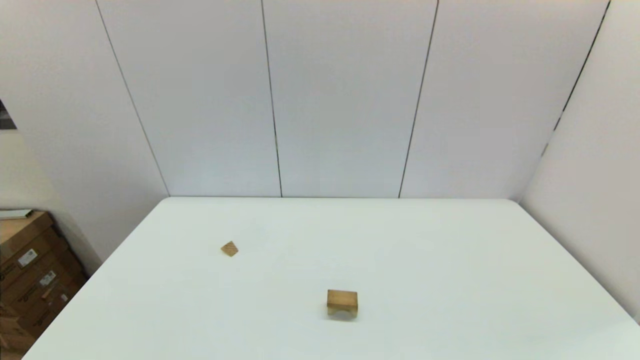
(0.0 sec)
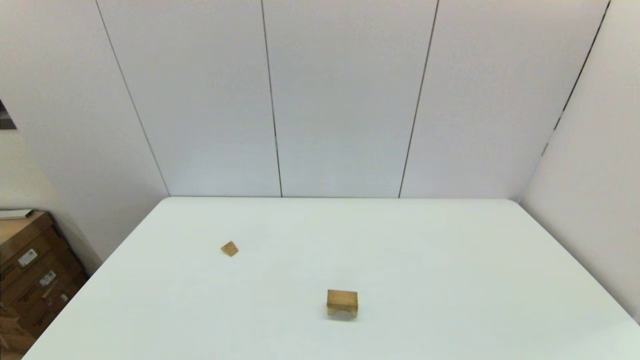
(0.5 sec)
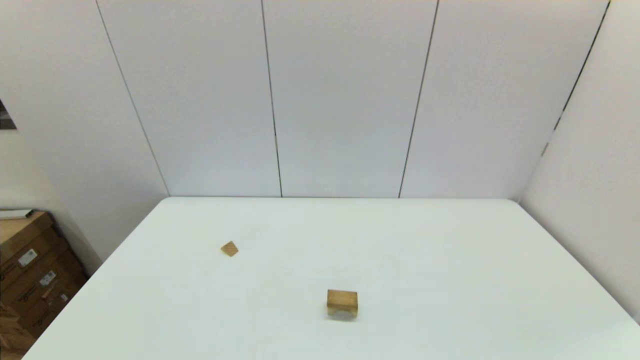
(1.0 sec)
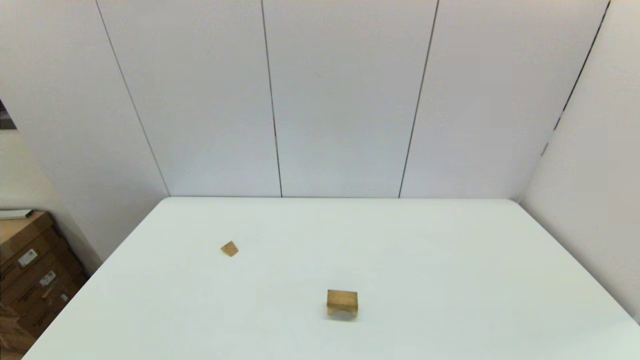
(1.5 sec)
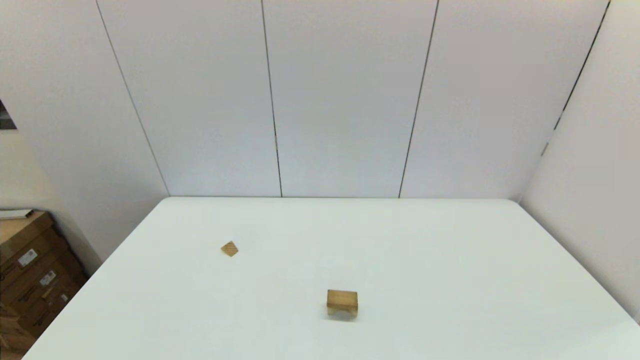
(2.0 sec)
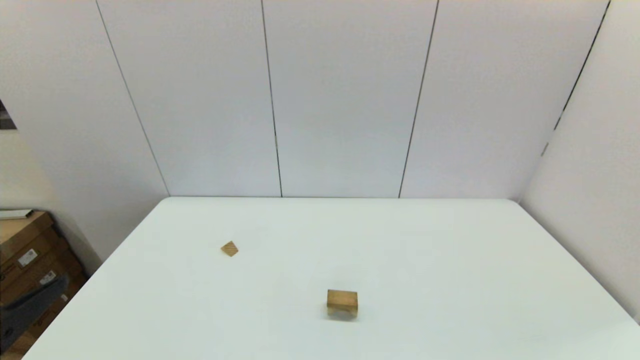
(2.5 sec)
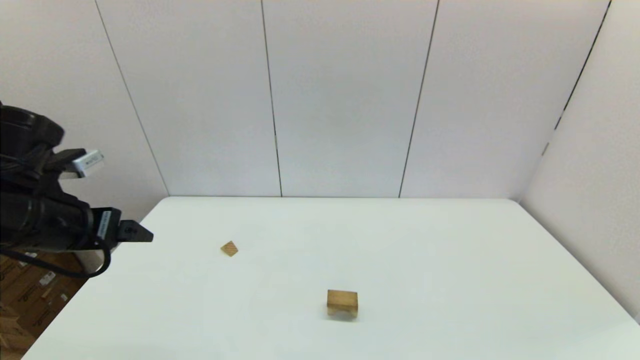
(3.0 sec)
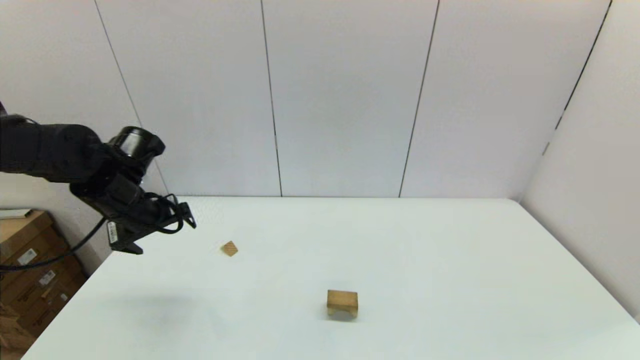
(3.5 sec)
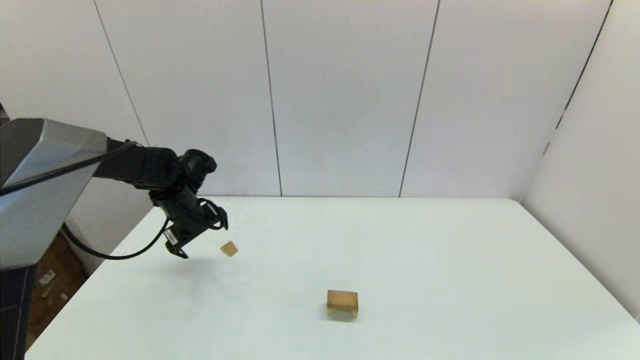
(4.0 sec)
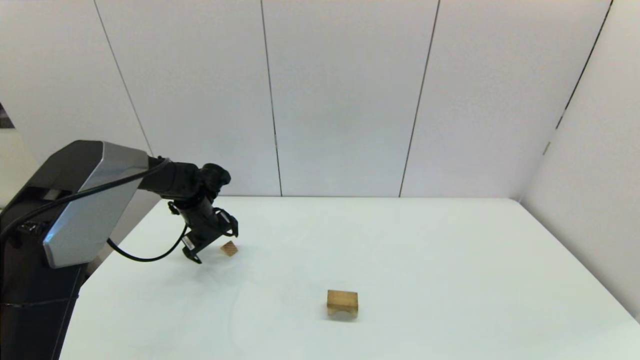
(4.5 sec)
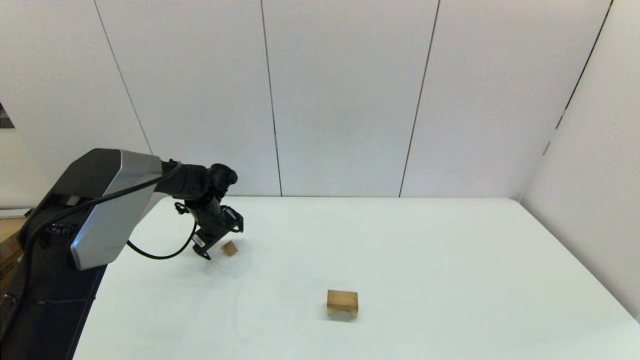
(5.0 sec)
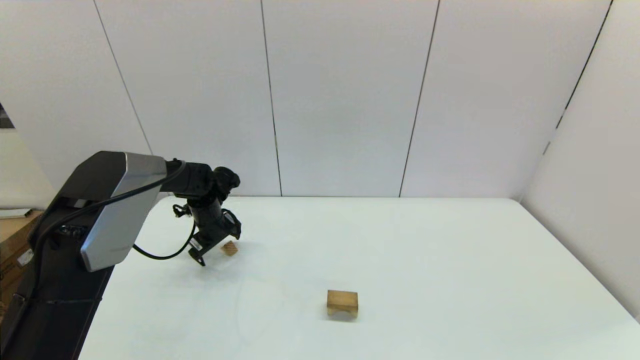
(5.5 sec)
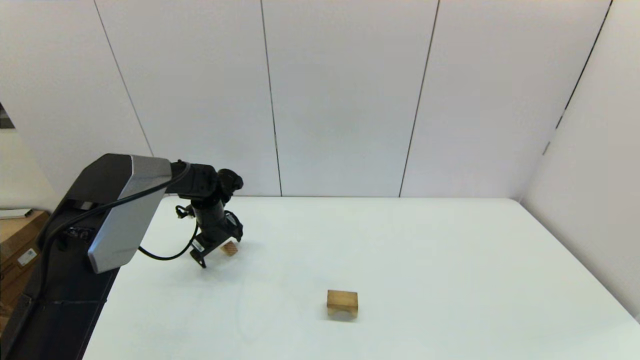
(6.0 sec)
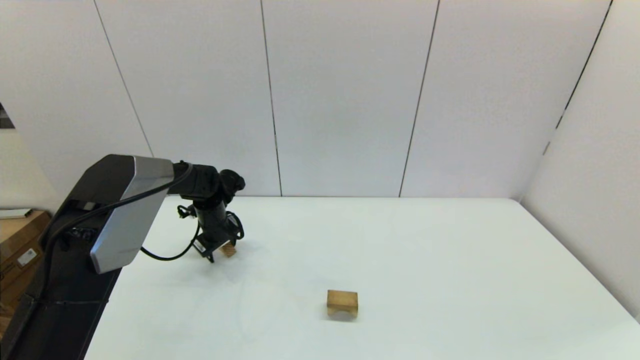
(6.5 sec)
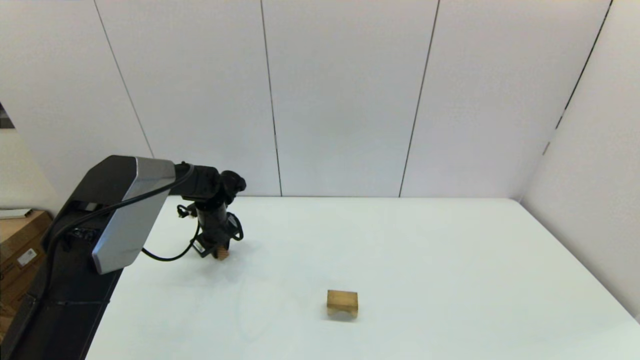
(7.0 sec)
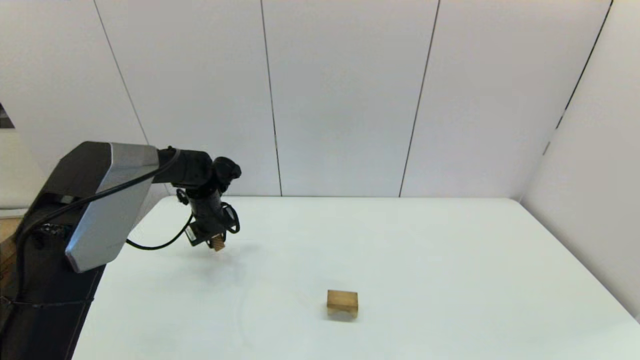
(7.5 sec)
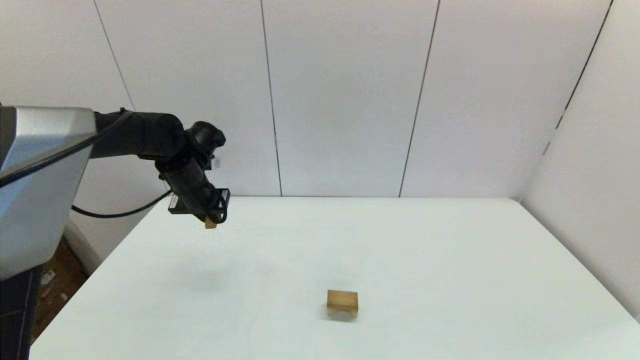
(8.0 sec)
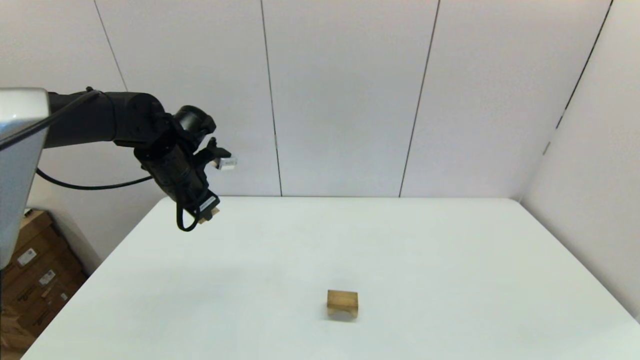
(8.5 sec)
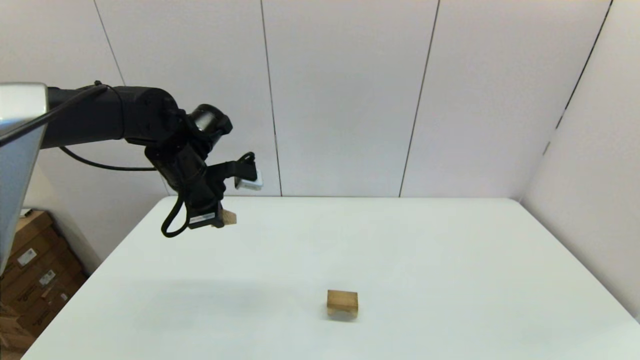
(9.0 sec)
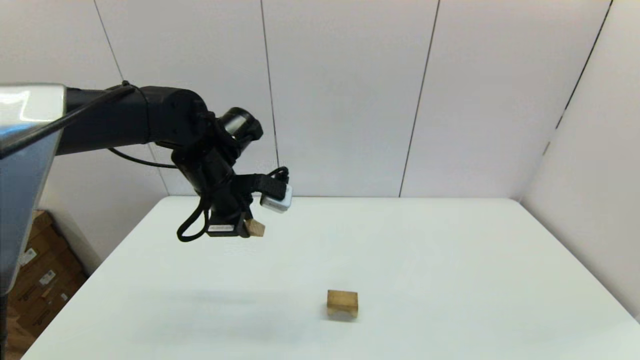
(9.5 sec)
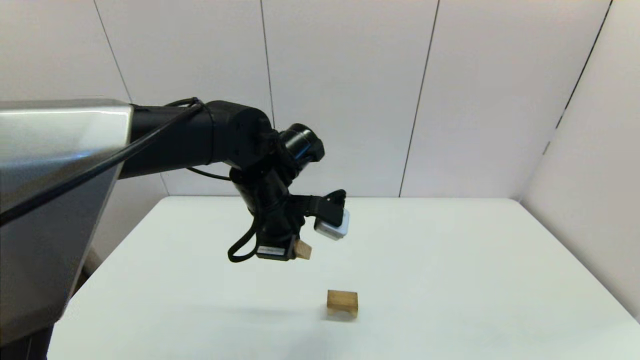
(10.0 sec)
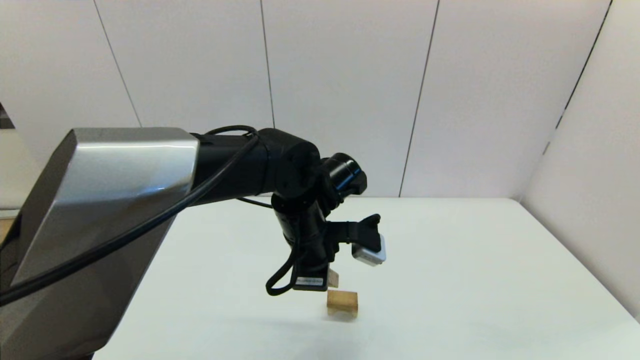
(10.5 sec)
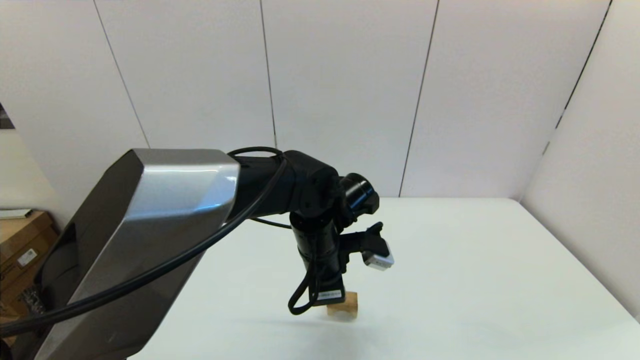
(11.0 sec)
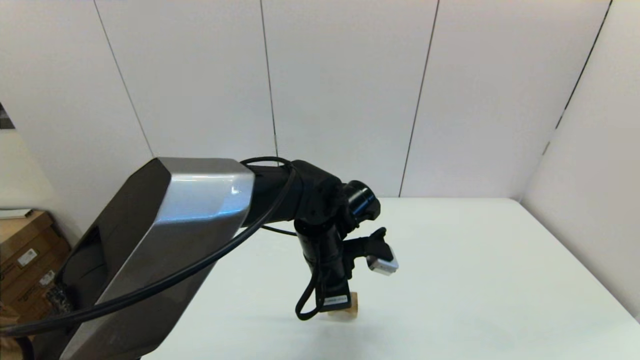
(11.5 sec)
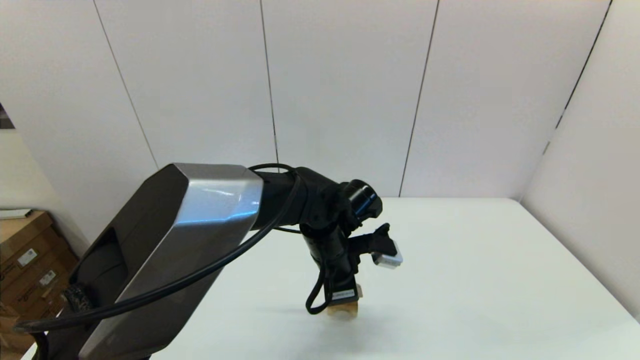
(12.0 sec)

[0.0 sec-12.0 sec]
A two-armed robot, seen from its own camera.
Task of the whole recording: place the arched building blocks in the center of the table, set up the rectangular building blocks, and then set up the triangular building blocks.
Step, 0.0 sec to 6.5 sec: Grasp the triangle-shaped block with the left gripper.
2.0 sec to 4.0 sec: The left gripper shifts about 40 cm forward.
4.0 sec to 6.0 sec: The left gripper goes some 5 cm downward.
6.0 sec to 8.0 sec: The left gripper goes some 15 cm upward, and closes.
8.0 sec to 10.0 sec: The left gripper shifts some 20 cm to the right and backward.
10.0 sec to 12.0 sec: The left gripper heads downward and to the right, covering approximately 10 cm.

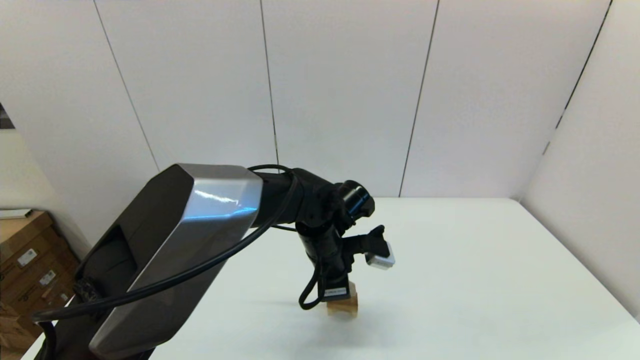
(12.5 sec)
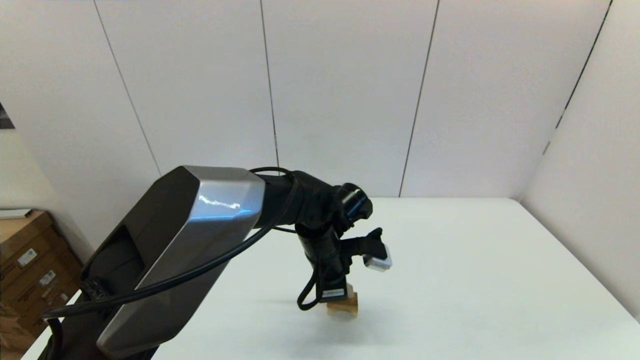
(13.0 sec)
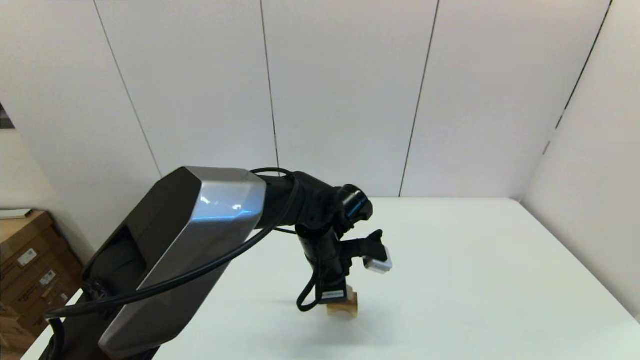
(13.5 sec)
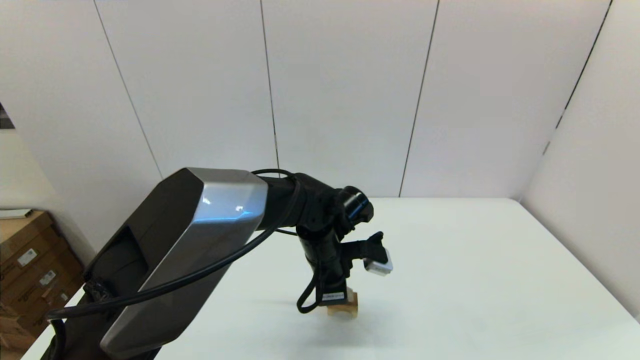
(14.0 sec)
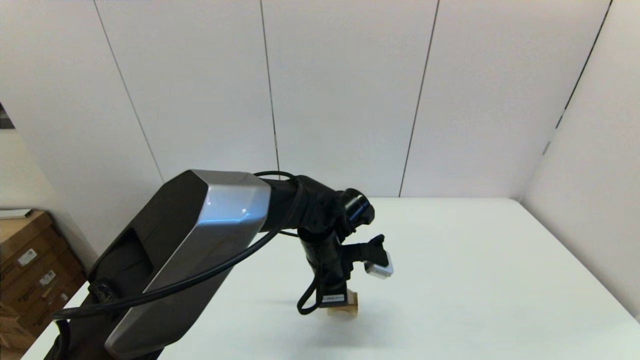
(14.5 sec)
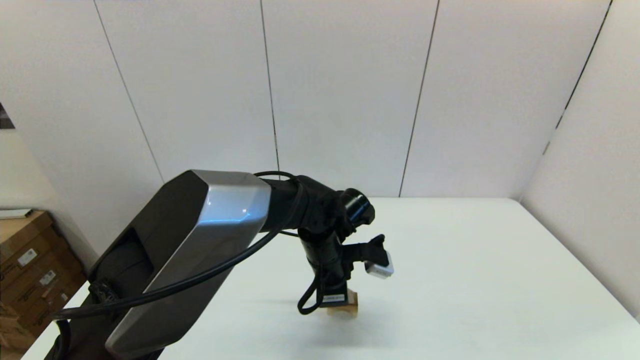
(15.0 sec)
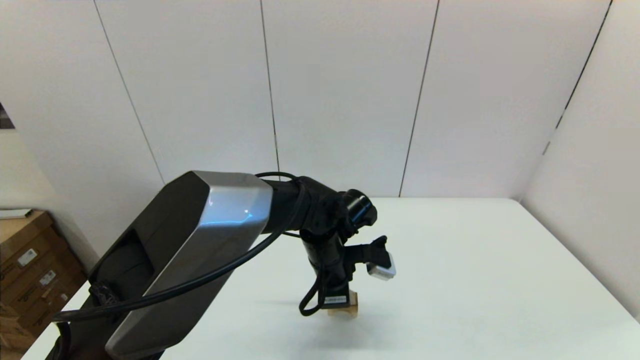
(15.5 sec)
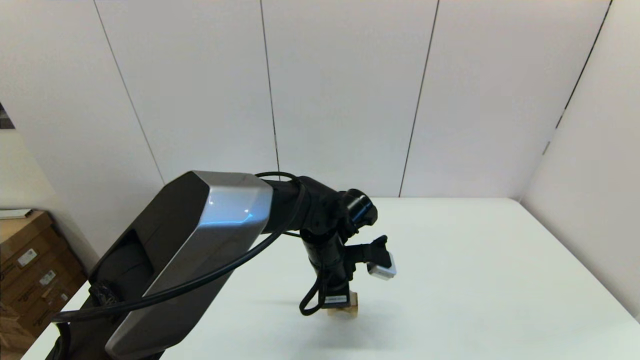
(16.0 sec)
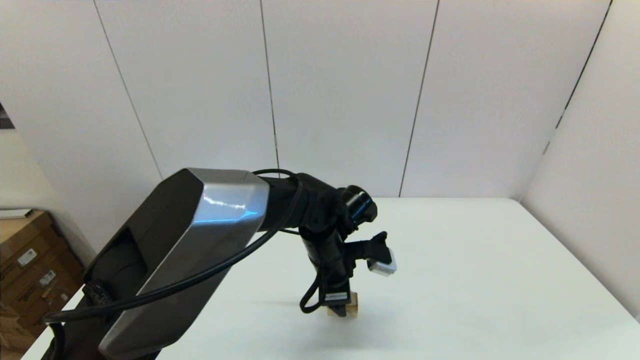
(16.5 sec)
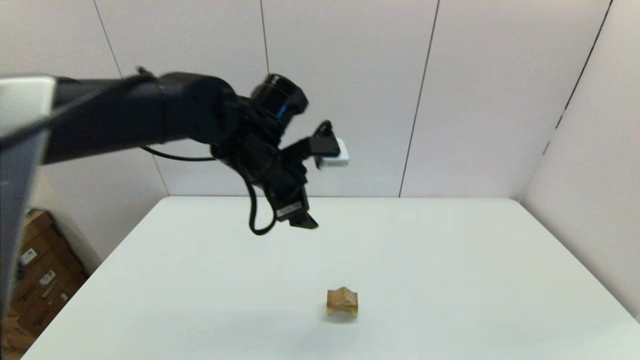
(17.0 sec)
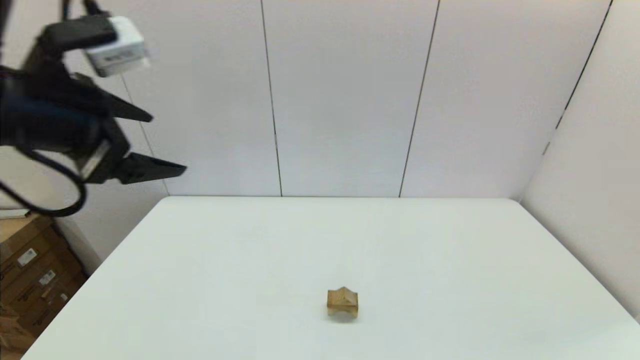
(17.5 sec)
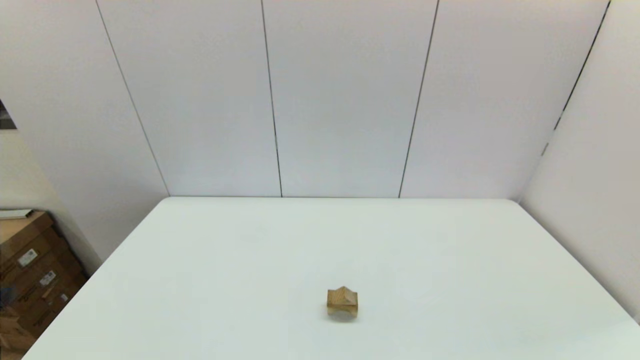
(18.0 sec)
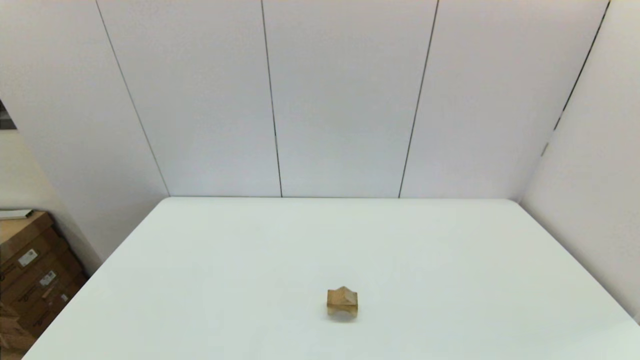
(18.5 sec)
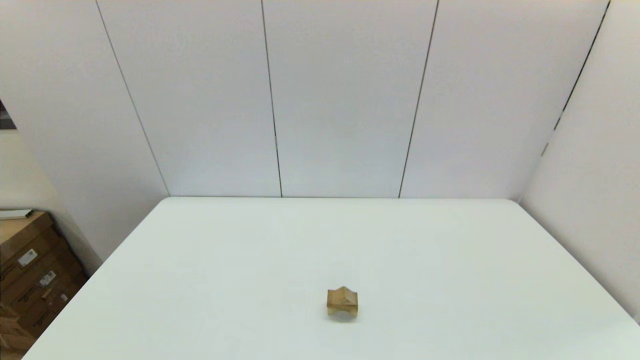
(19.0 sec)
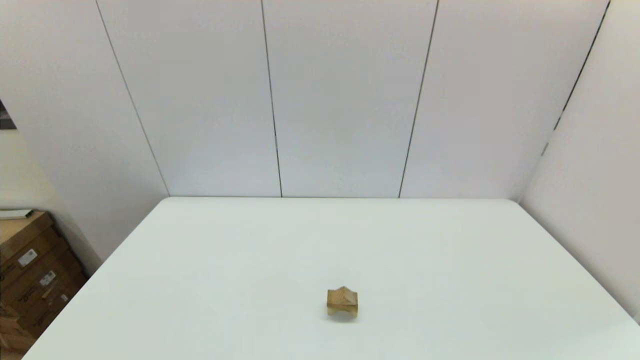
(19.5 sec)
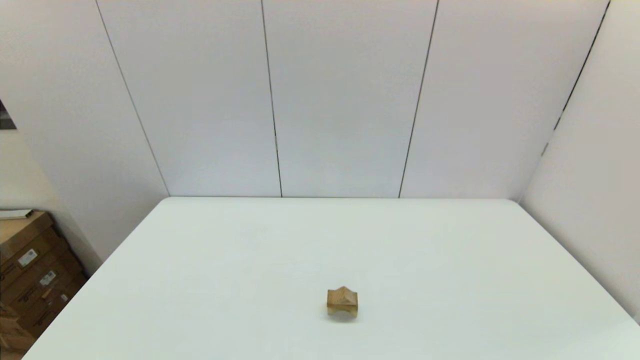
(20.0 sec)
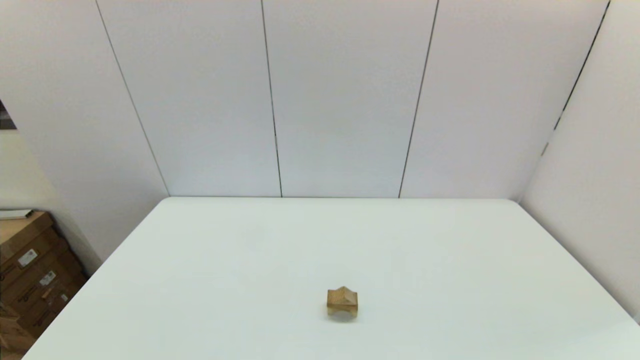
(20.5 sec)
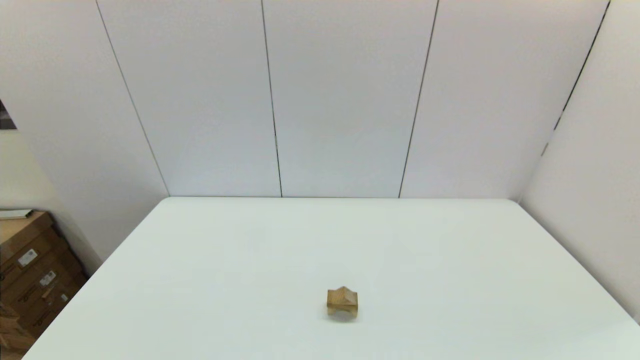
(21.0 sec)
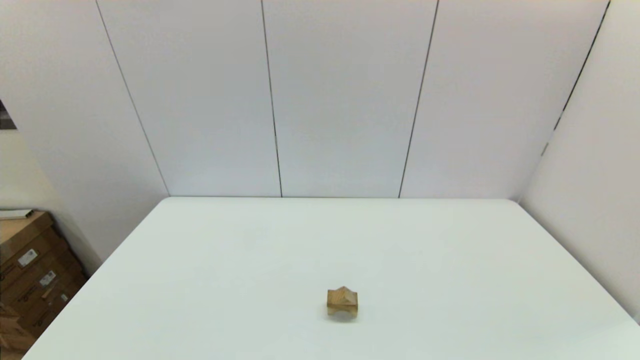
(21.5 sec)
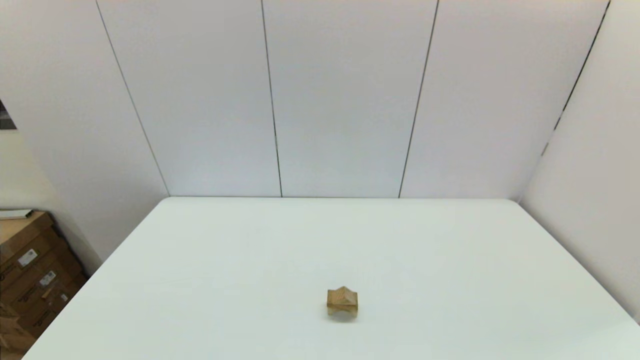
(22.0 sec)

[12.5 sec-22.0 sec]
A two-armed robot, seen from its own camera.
Task of the whole recording: place the arched building blocks in the center of the table, set up the rectangular building blocks, and then set up the triangular building blocks.
12.5 sec to 14.5 sec: Both grippers stay about where they are.
14.5 sec to 16.5 sec: The left gripper opens its fingers.
16.5 sec to 18.0 sec: The left gripper shifts roughly 50 cm to the left, backward and upward.
